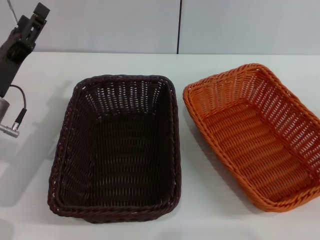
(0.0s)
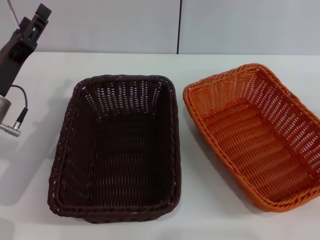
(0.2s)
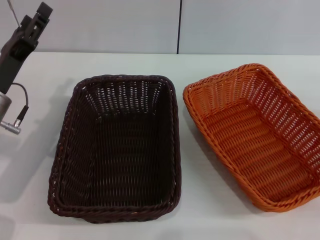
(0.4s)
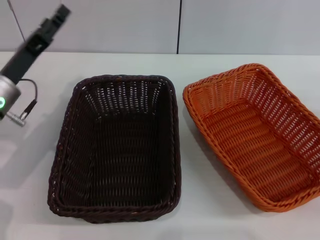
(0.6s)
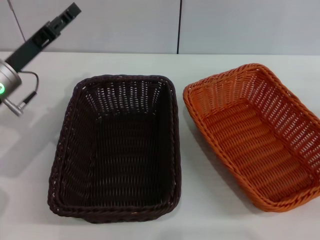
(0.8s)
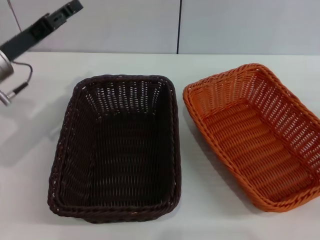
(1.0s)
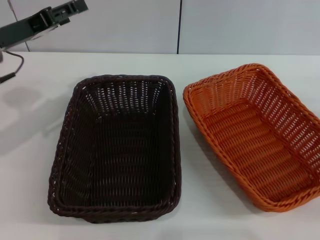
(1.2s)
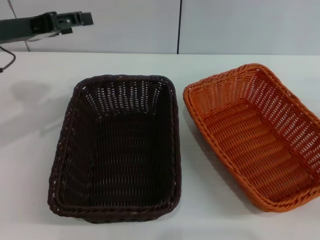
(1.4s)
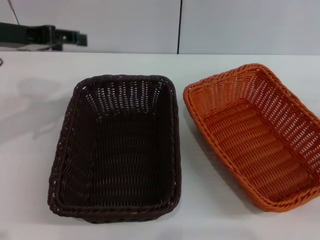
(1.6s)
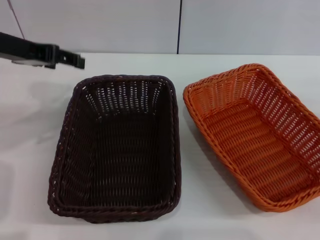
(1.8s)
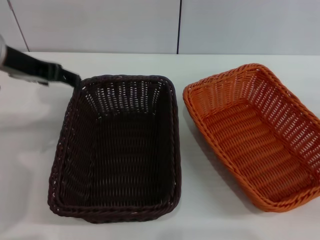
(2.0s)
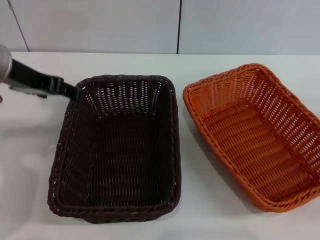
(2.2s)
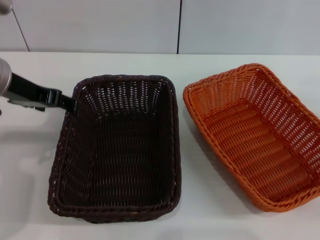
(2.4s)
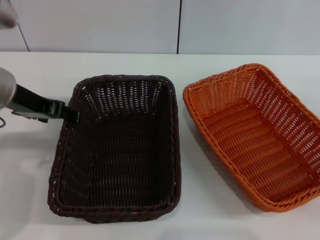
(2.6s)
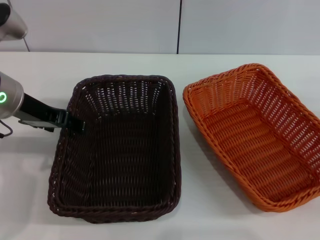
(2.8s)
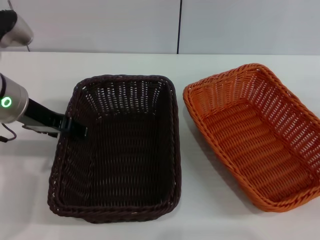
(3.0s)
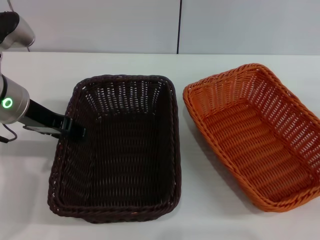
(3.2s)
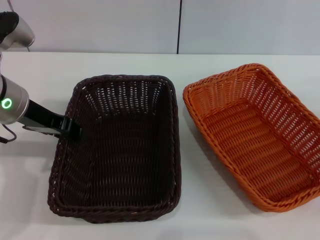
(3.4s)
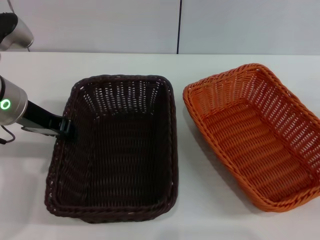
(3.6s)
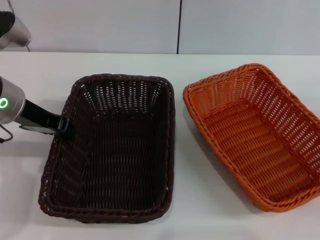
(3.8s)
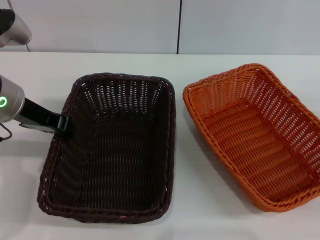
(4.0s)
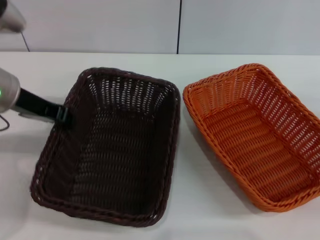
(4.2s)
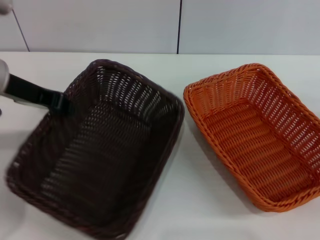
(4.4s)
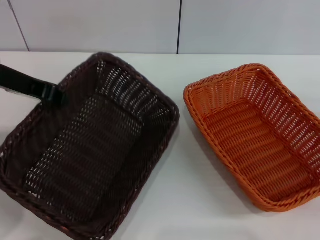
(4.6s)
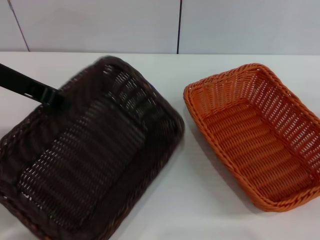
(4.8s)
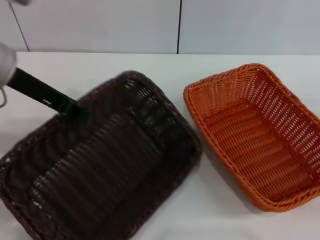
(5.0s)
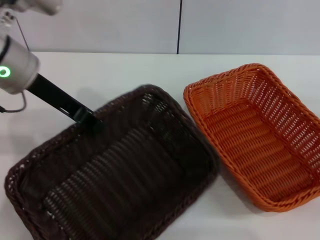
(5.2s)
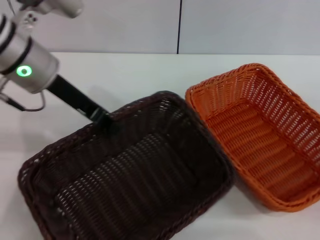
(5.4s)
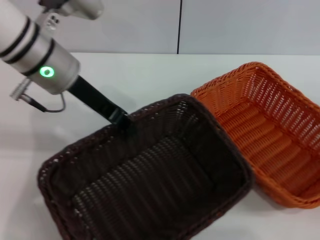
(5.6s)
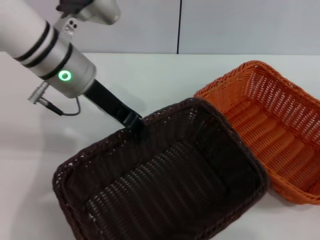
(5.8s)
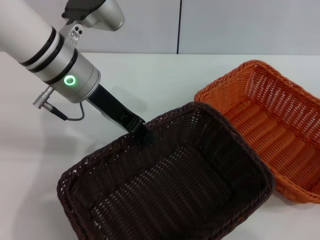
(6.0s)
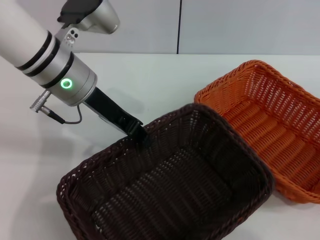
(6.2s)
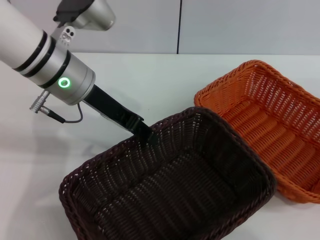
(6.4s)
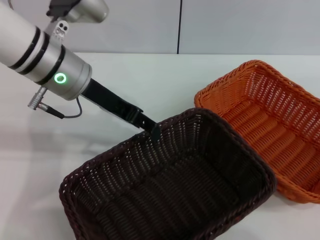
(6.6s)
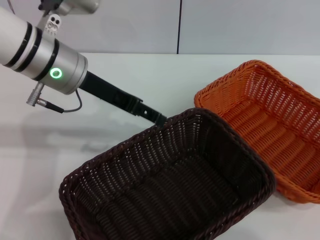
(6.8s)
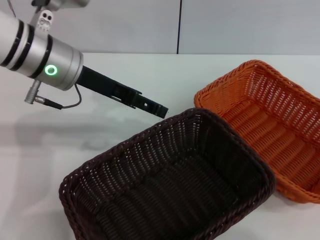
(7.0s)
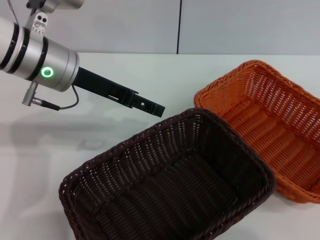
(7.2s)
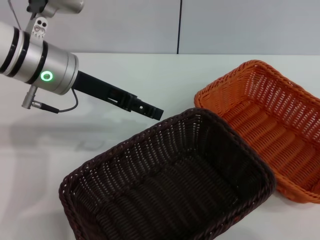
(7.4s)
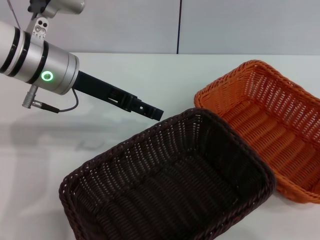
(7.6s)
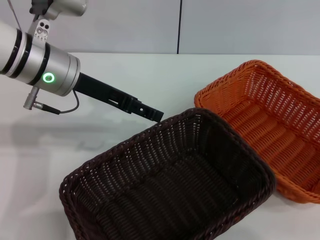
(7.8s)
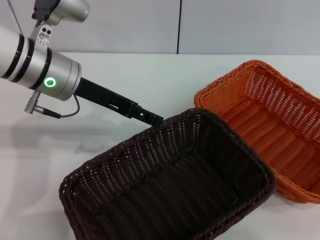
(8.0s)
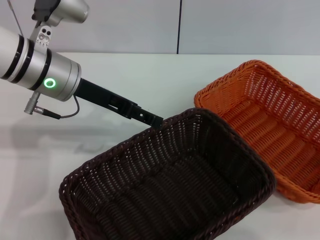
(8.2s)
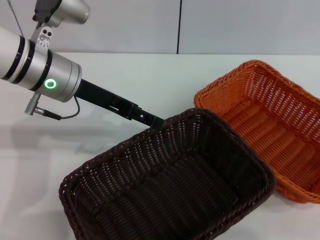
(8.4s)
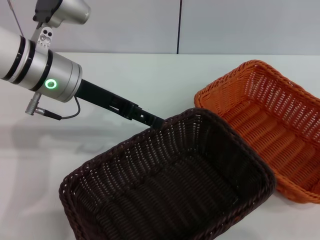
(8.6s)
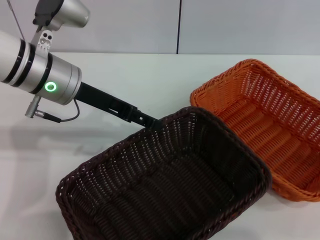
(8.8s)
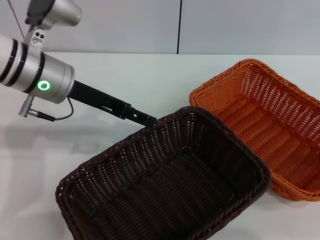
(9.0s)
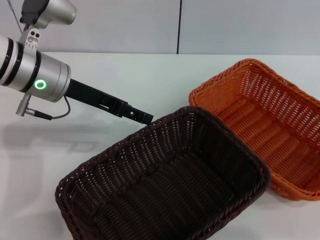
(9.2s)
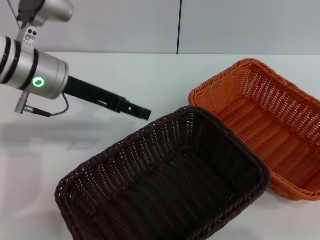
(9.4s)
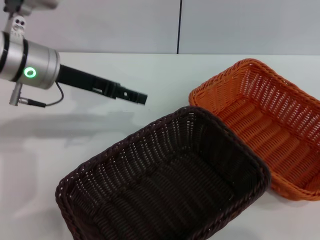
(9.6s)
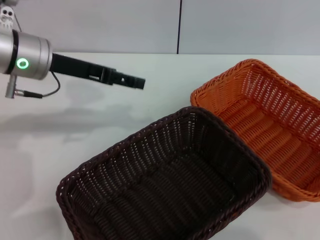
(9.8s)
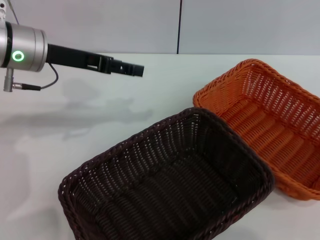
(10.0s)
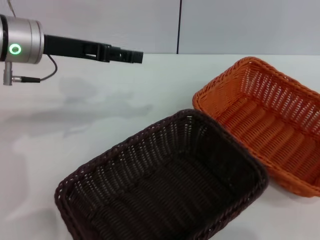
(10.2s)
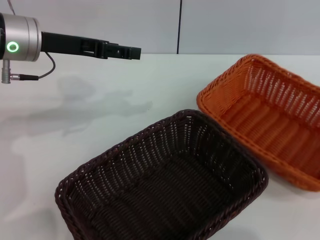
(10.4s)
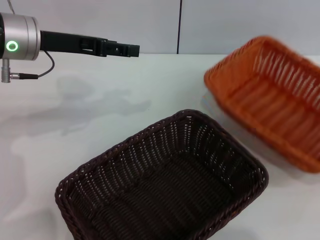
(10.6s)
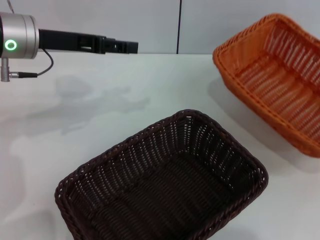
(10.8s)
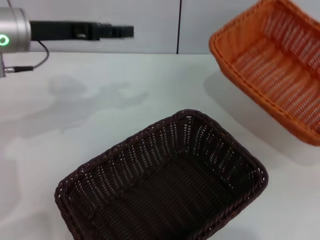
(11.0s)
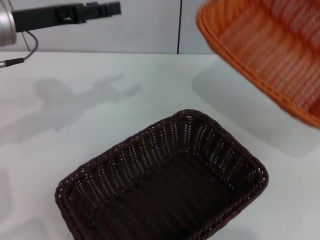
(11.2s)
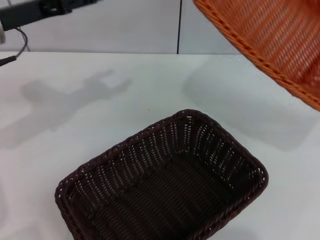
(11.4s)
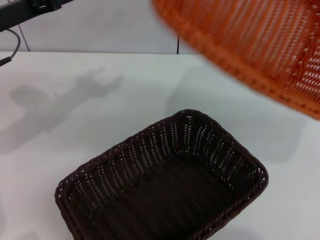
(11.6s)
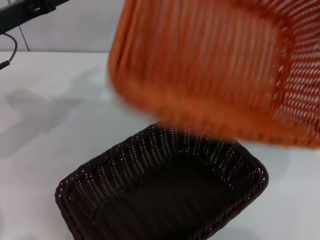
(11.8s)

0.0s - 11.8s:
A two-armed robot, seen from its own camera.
Step, 0.0s - 4.4s: Pick up the dark basket with the left gripper.
Step, 4.8s - 6.4s: Place the dark basket in the center of view with the left gripper.
Step, 6.8s - 10.6s: Pick up the light basket with the right gripper.
0.0s - 1.4s: The left gripper travels upward and forward by roughly 15 cm.
1.4s - 3.0s: The left gripper shifts approximately 5 cm to the right.
3.0s - 4.4s: The left gripper closes up.
4.4s - 6.0s: The left gripper goes some 10 cm to the right.
6.0s - 7.4s: The left gripper opens. Meanwhile the right gripper moves upward and to the right, roughly 20 cm.
7.4s - 8.8s: The right gripper goes about 10 cm downward and to the left.
8.8s - 10.4s: The right gripper closes. The left gripper changes place by some 5 cm.
10.4s - 11.8s: The right gripper is displaced upward and to the left by about 10 cm, while the left gripper travels to the left by some 5 cm.

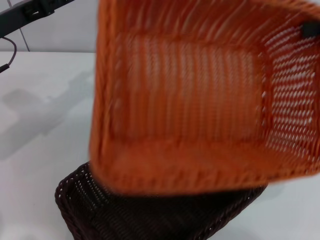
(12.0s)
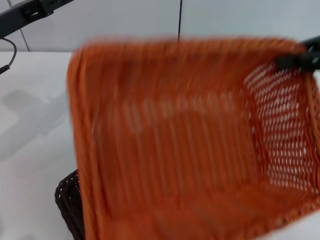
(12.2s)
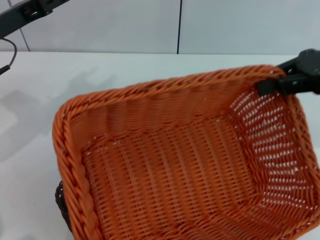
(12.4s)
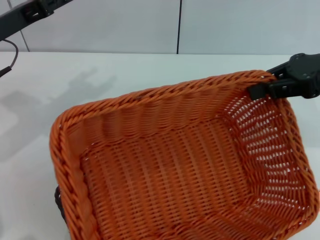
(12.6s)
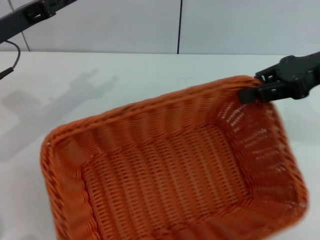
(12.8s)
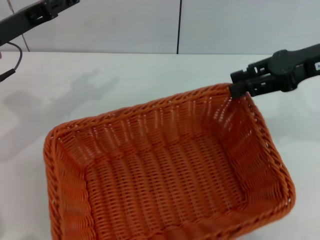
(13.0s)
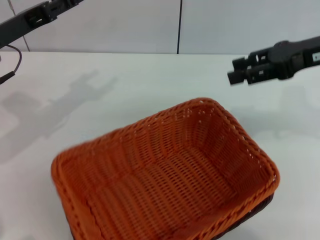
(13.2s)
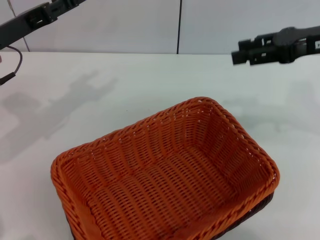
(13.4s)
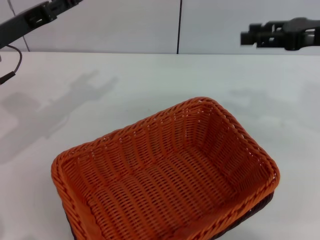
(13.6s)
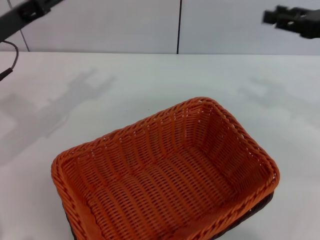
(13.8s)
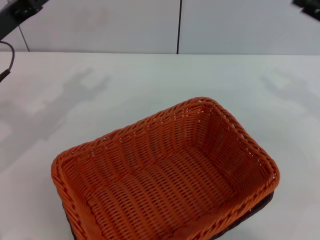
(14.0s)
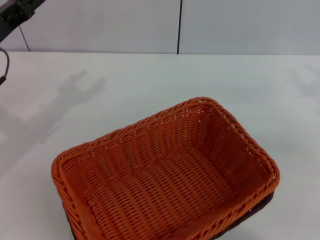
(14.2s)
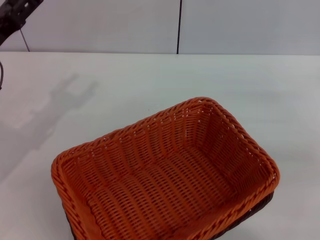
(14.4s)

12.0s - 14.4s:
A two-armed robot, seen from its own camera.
12.0s - 13.2s: The right gripper shifts some 5 cm to the left, and opens up.
13.2s - 14.4s: The left gripper moves some 5 cm. Meanwhile the right gripper shifts some 15 cm to the right and downward.
